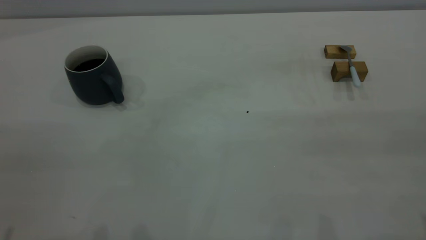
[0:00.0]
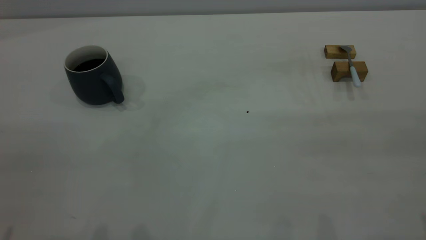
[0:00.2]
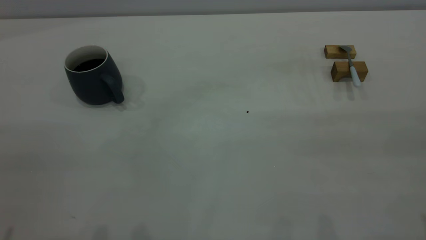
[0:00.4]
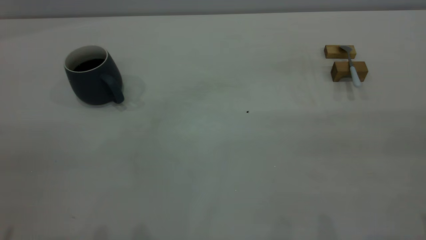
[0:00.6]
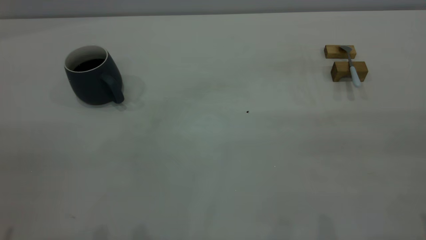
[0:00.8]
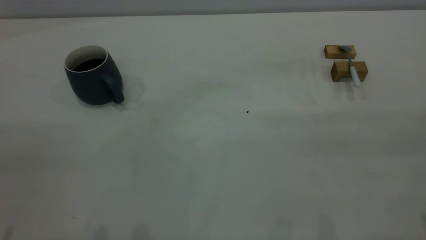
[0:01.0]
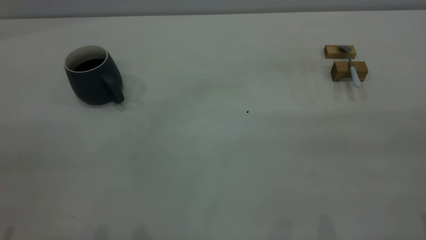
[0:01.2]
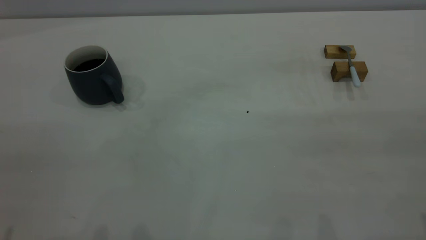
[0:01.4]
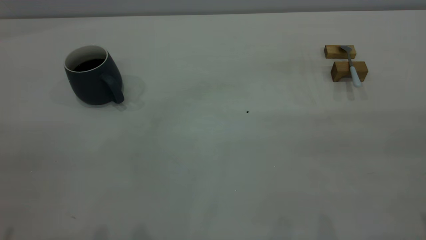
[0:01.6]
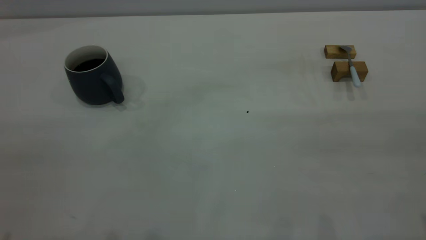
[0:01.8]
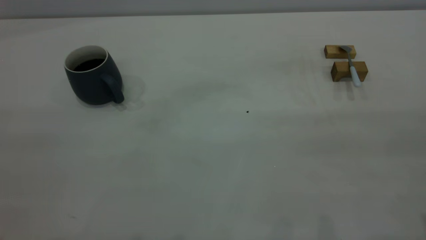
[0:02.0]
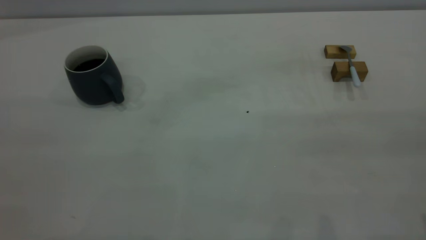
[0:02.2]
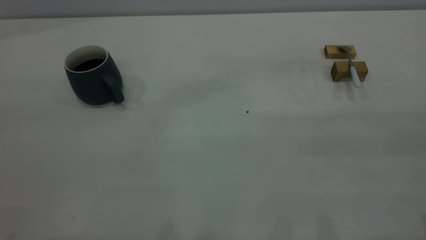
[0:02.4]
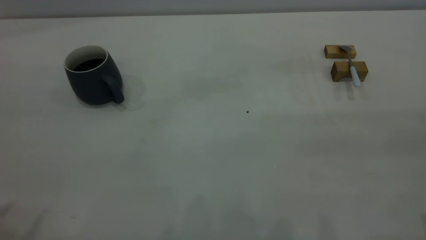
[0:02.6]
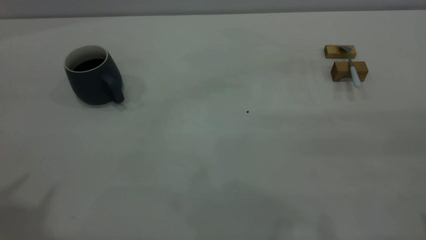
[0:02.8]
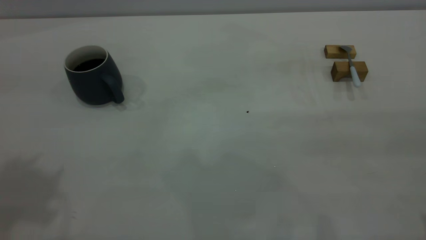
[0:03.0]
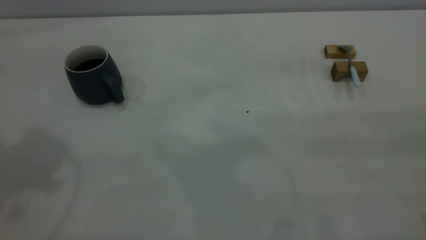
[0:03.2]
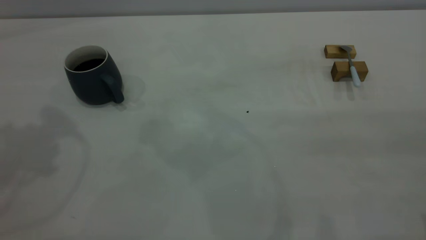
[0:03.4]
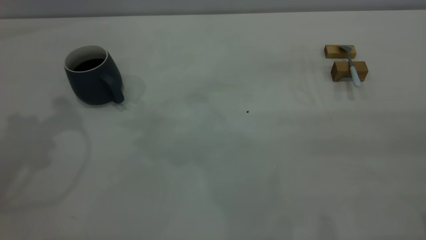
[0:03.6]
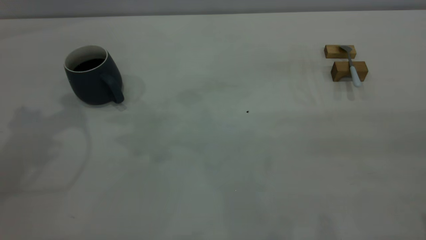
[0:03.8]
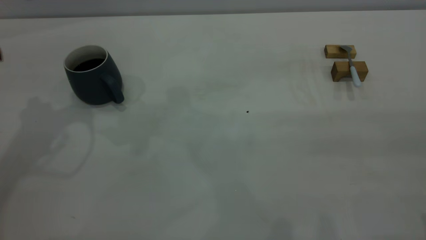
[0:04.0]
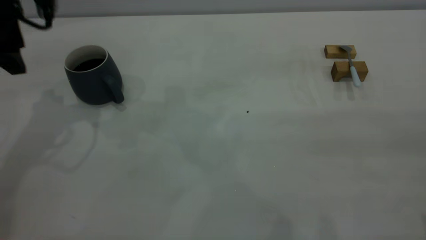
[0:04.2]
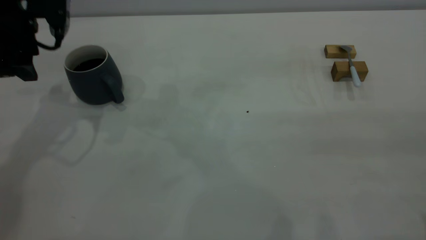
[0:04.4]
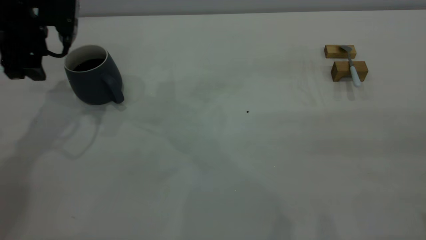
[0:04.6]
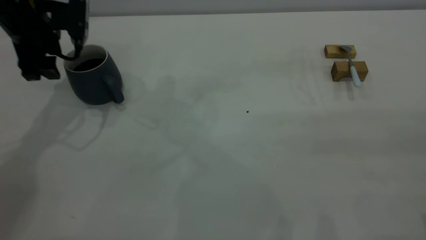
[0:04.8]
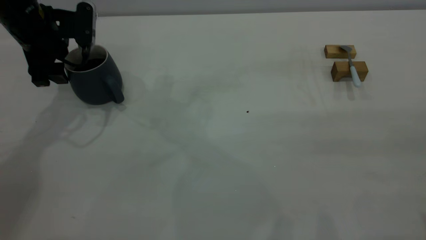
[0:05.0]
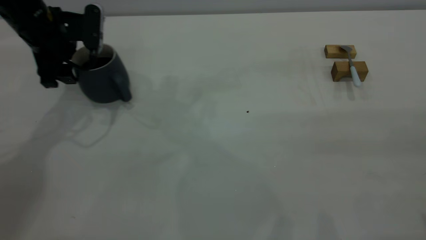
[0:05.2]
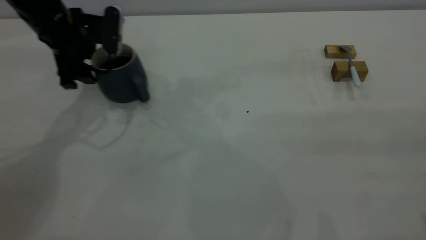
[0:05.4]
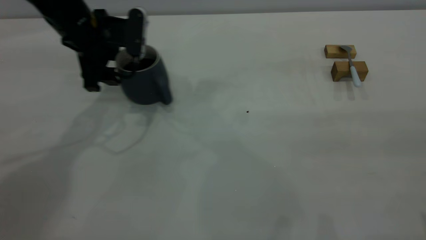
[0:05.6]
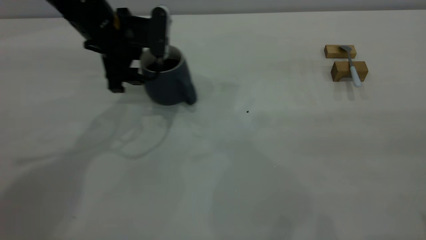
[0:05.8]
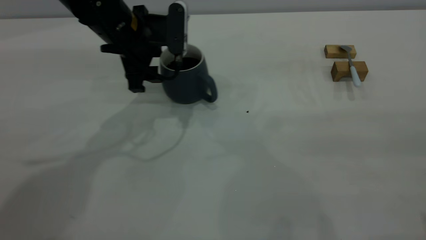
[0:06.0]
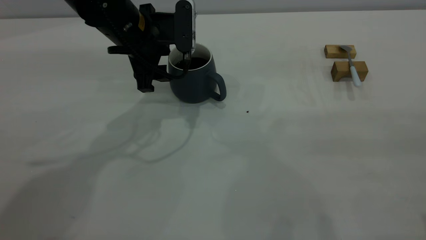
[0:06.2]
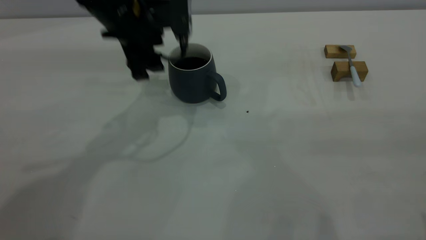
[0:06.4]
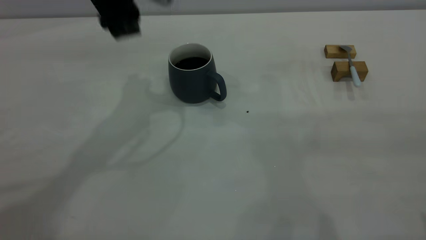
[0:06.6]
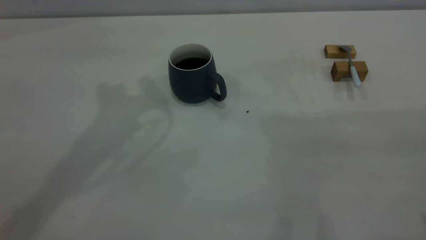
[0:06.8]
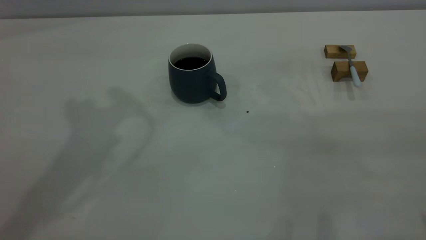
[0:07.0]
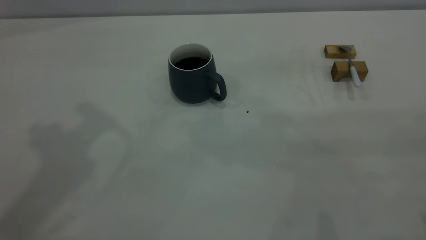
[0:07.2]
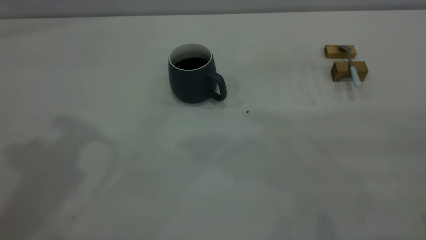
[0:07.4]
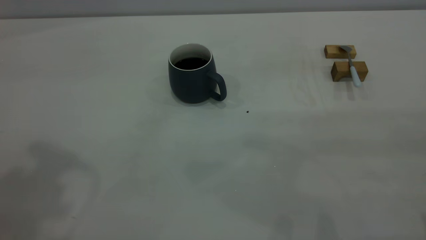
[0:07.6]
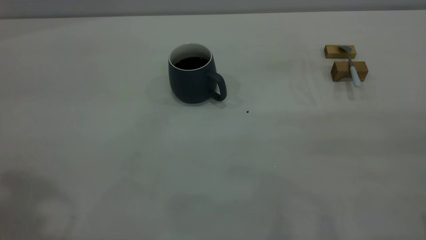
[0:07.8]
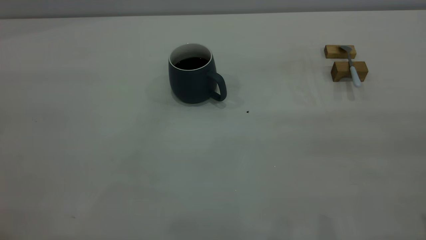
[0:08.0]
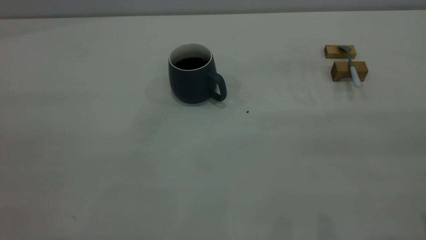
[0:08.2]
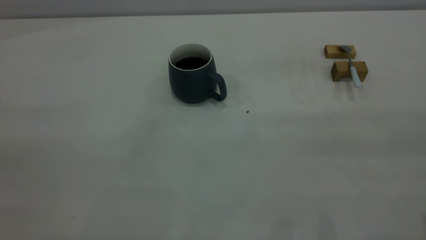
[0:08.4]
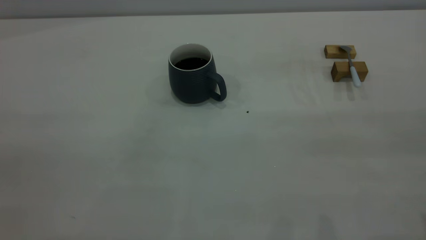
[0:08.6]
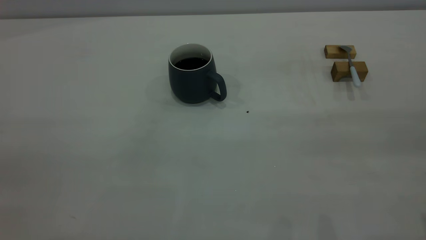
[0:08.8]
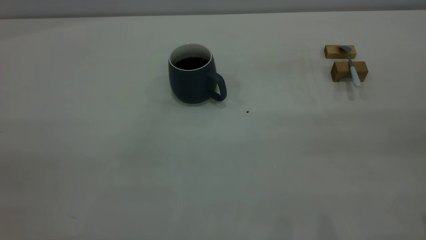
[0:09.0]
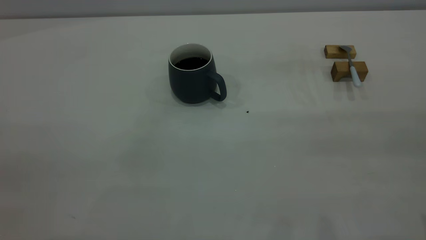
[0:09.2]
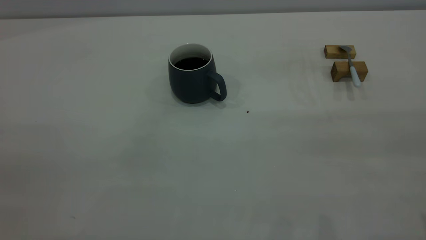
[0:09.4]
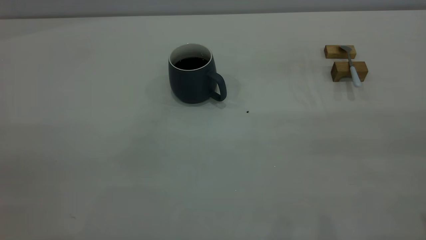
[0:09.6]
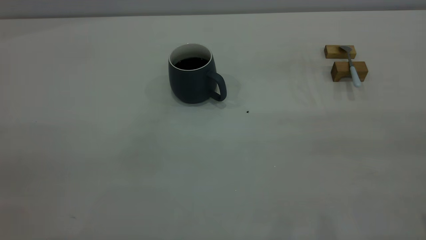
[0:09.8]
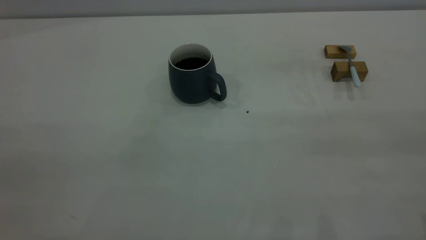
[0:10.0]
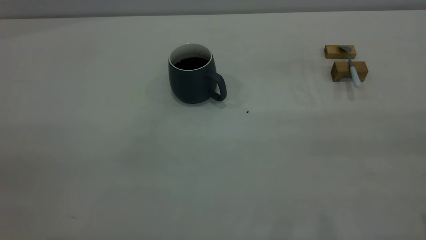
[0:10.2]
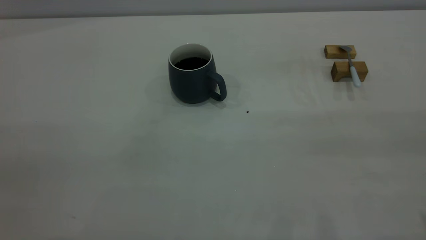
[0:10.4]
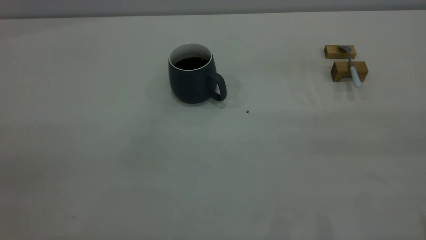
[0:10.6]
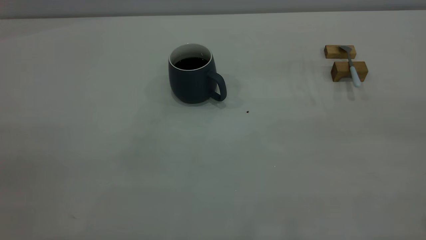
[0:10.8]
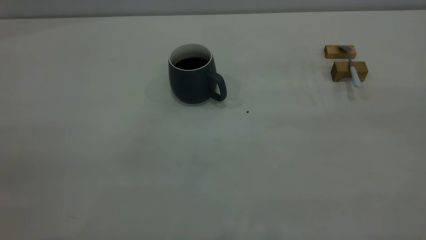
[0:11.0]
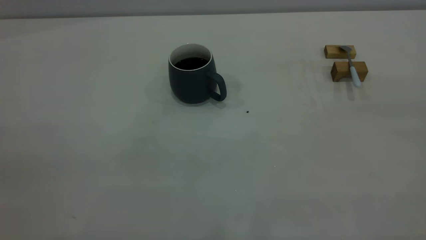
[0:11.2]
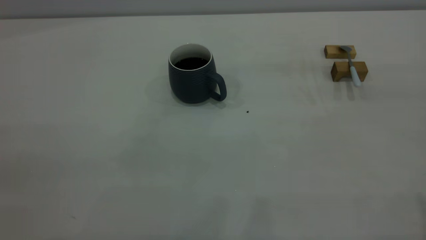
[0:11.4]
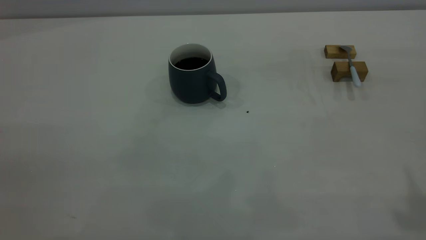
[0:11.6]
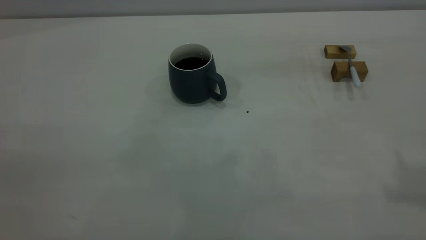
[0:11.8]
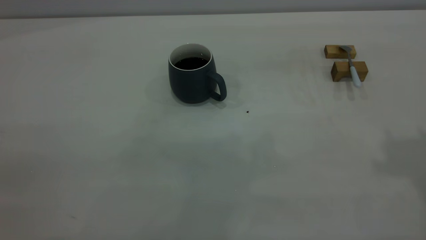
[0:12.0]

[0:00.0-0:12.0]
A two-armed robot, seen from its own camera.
Step, 0:00.0 to 0:06.4: Move the cup with coffee to the center of view.
0:00.0 to 0:01.6: Both grippers stay about where they are.
0:03.0 to 0:04.4: The left gripper is displaced downward and forward by some 30 cm.
0:04.4 to 0:06.0: The left gripper heads to the right, covering some 15 cm.
0:06.0 to 0:07.6: The left gripper heads upward and backward, covering approximately 35 cm.
0:09.0 to 0:10.4: Both grippers stay put.

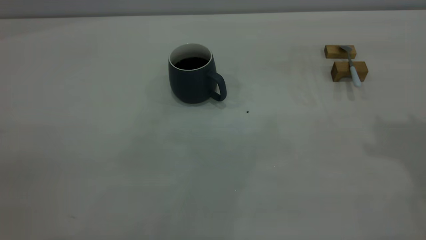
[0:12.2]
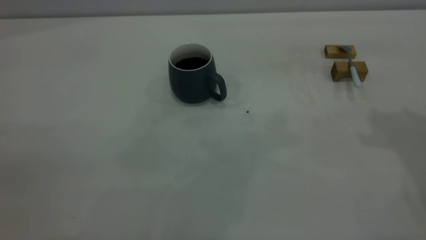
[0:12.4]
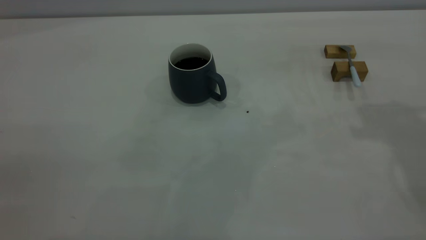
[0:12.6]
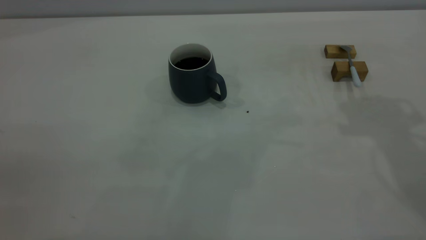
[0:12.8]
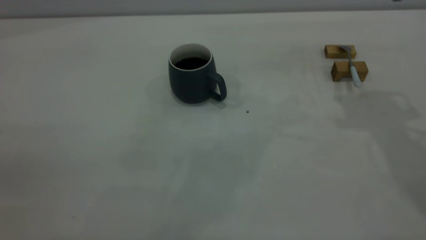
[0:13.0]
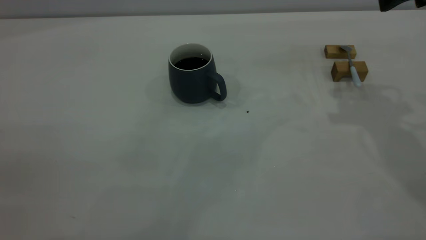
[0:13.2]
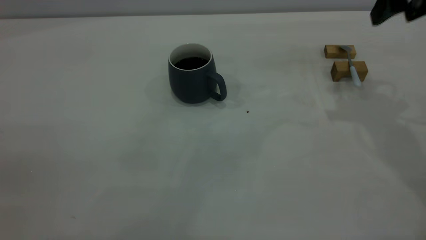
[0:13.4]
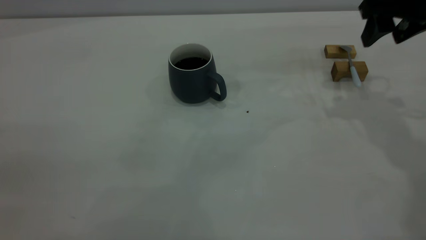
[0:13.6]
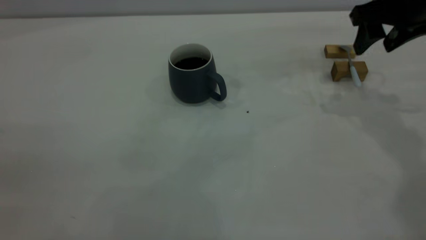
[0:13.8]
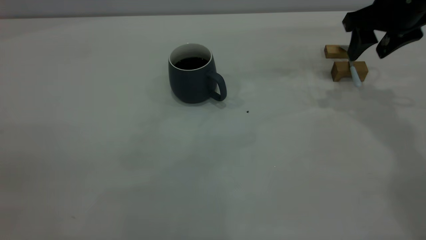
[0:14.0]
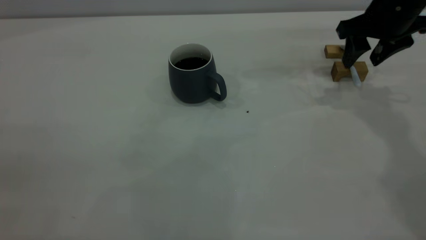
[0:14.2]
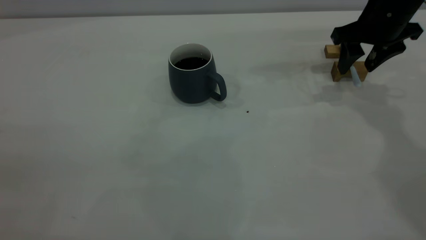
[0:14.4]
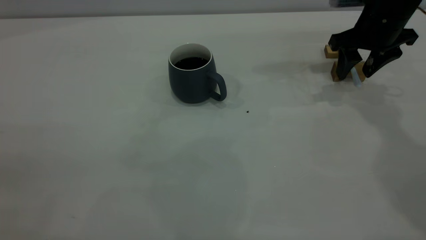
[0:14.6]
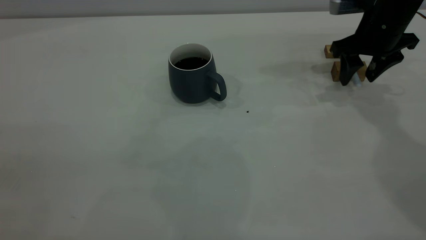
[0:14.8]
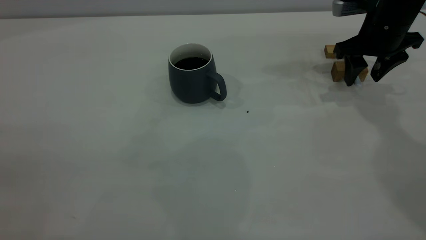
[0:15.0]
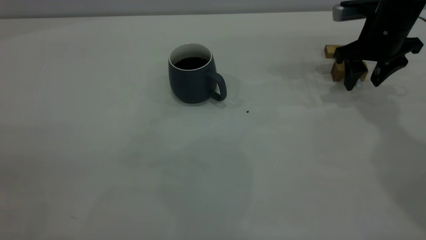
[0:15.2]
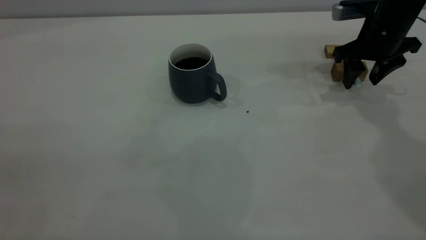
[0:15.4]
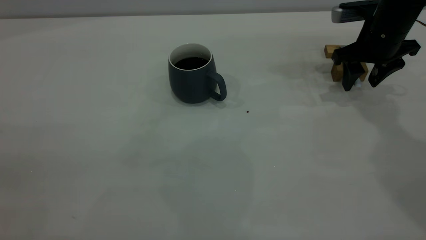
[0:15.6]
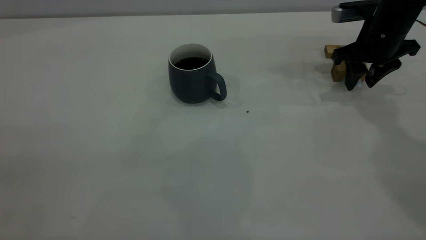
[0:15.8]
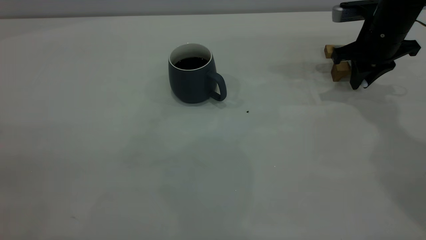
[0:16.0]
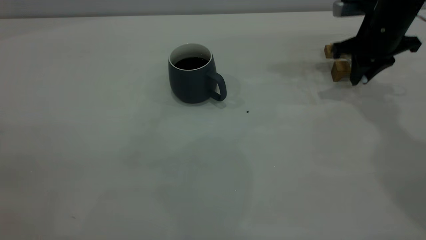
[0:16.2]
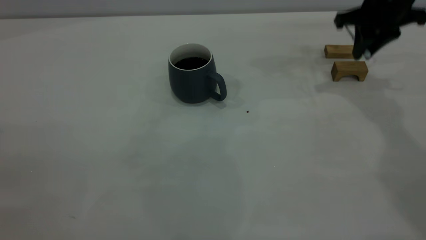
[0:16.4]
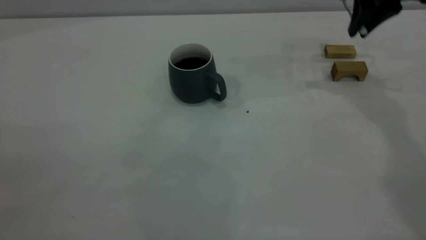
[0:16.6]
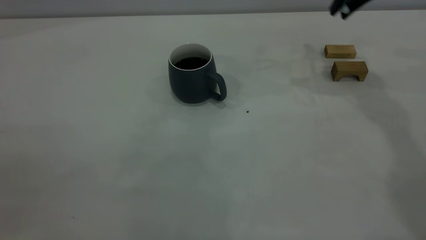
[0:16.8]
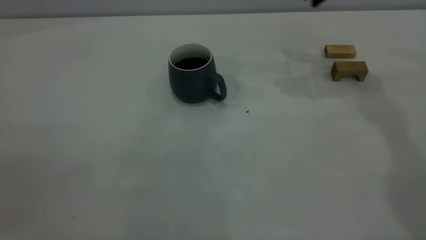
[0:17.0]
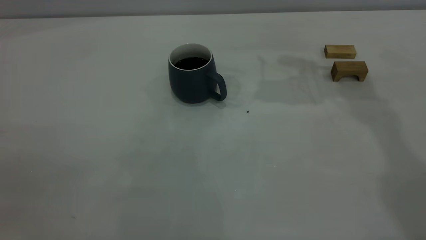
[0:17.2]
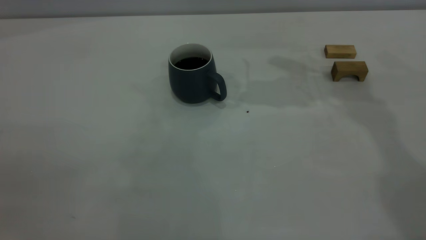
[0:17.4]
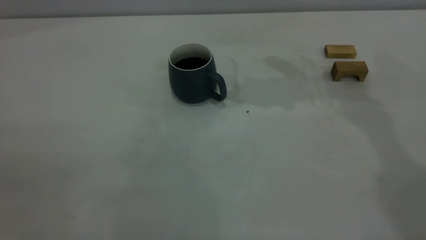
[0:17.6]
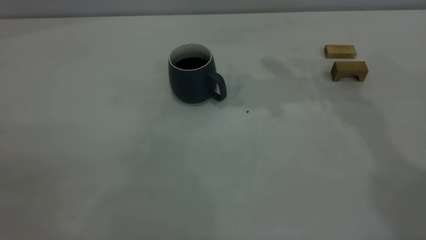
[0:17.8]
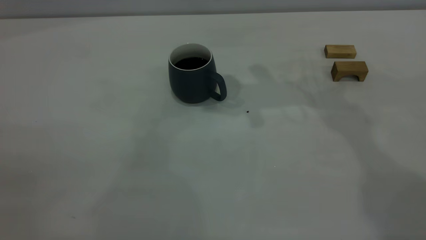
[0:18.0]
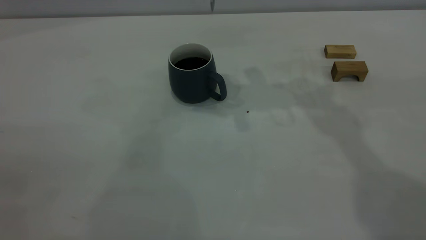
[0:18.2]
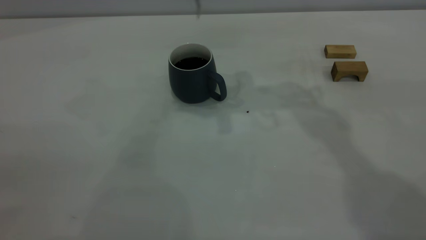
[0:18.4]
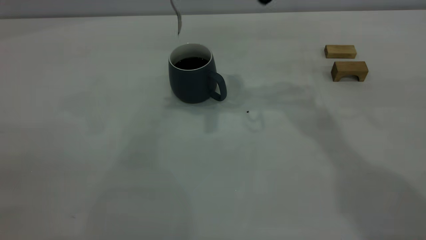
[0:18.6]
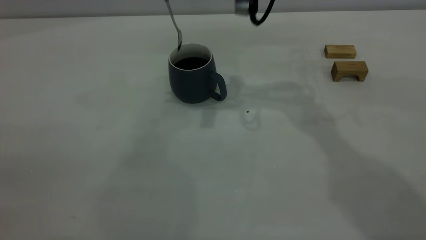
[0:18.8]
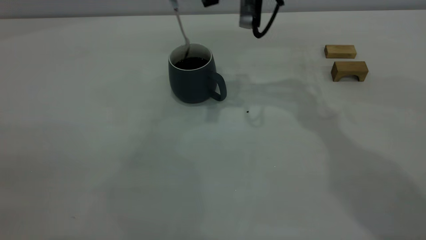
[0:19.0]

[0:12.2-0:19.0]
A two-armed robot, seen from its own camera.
Step, 0:12.2 to 0:16.4: Pick up the spoon.
0:12.2 to 0:13.6: The right gripper shifts some 20 cm downward and forward.
0:13.6 to 0:15.0: The right gripper travels downward and forward by about 10 cm.
0:15.0 to 0:16.2: The right gripper closes.
0:16.2 to 0:17.6: The right gripper goes about 20 cm upward and to the left.
0:17.6 to 0:19.0: The right gripper is displaced to the left and downward by some 10 cm.
